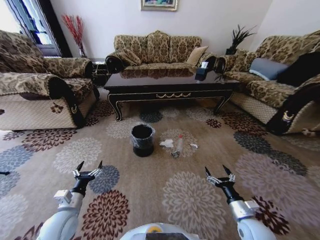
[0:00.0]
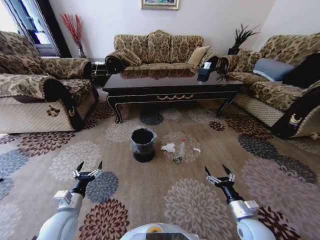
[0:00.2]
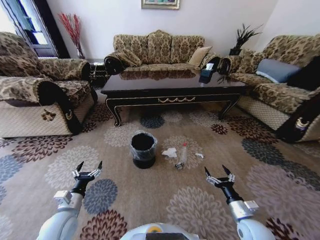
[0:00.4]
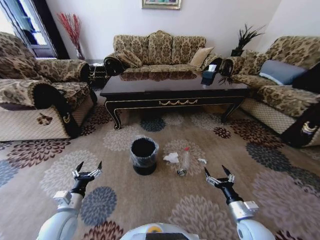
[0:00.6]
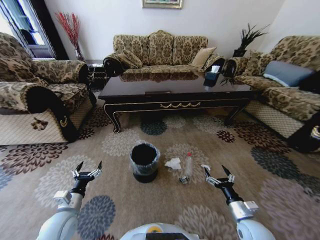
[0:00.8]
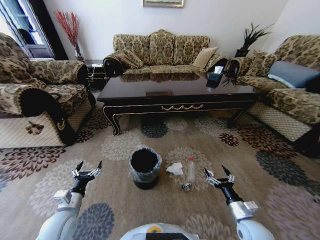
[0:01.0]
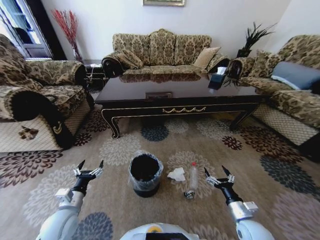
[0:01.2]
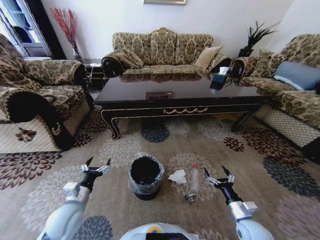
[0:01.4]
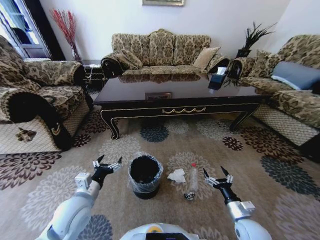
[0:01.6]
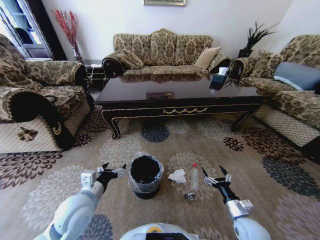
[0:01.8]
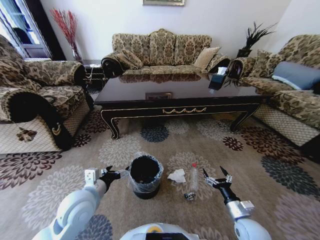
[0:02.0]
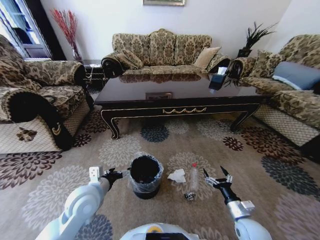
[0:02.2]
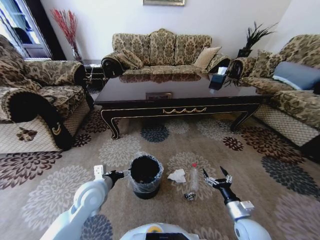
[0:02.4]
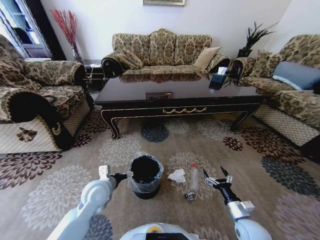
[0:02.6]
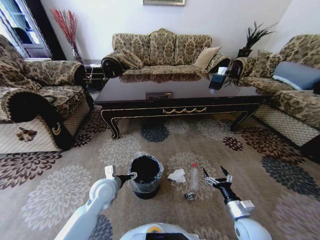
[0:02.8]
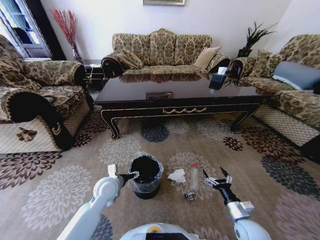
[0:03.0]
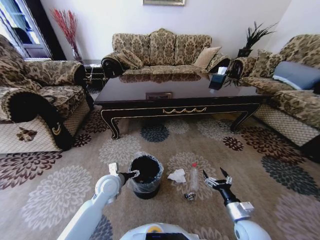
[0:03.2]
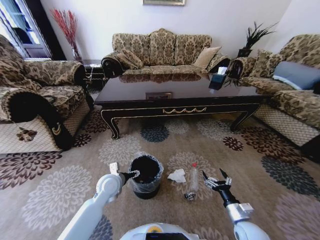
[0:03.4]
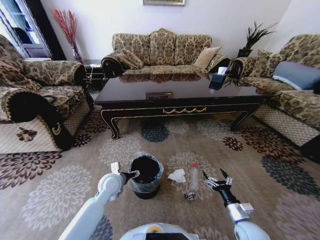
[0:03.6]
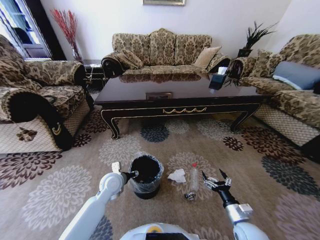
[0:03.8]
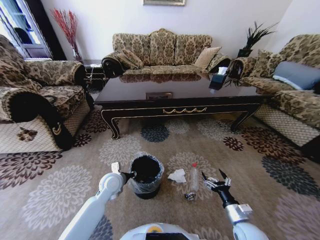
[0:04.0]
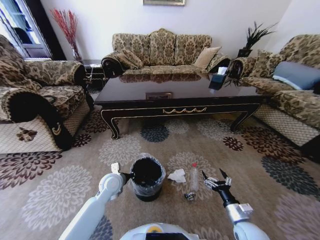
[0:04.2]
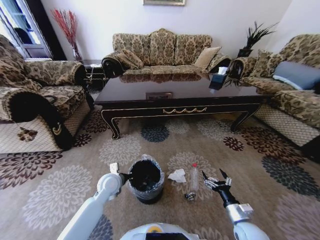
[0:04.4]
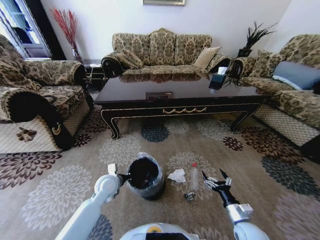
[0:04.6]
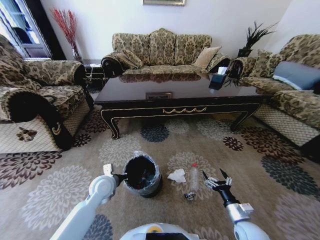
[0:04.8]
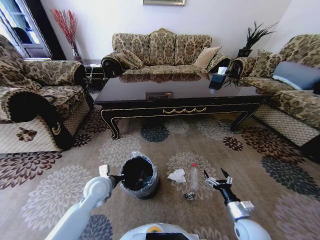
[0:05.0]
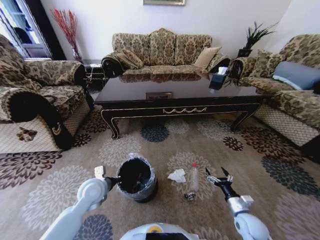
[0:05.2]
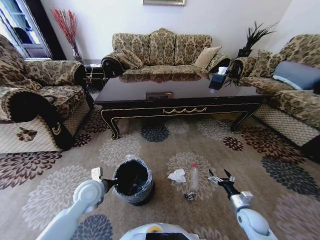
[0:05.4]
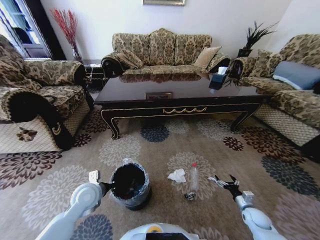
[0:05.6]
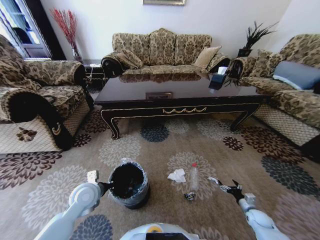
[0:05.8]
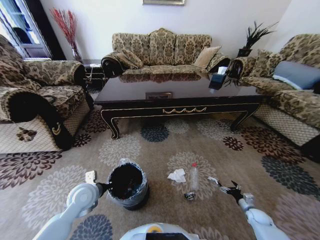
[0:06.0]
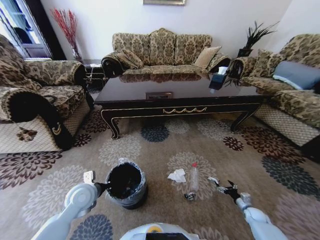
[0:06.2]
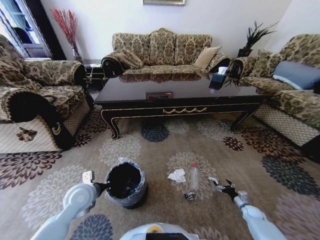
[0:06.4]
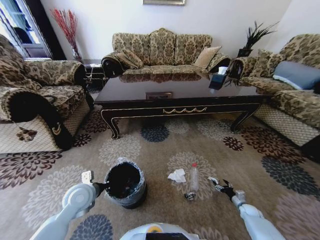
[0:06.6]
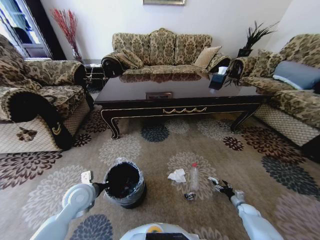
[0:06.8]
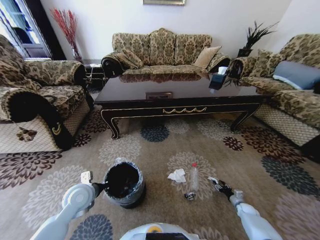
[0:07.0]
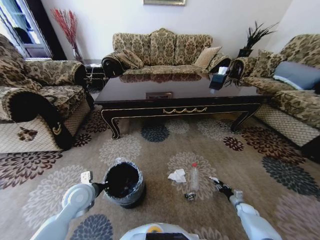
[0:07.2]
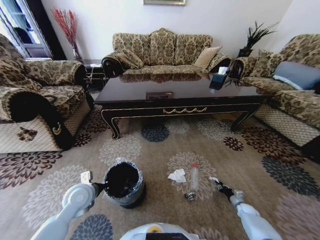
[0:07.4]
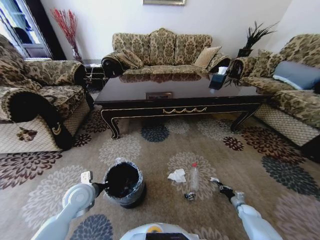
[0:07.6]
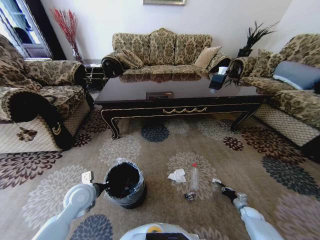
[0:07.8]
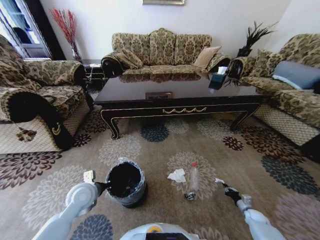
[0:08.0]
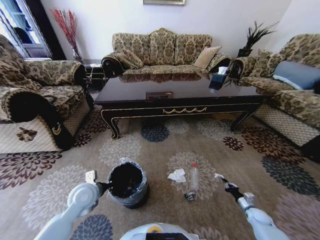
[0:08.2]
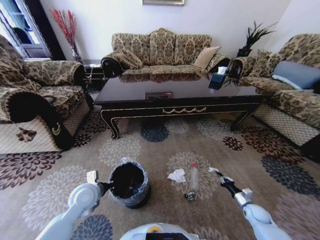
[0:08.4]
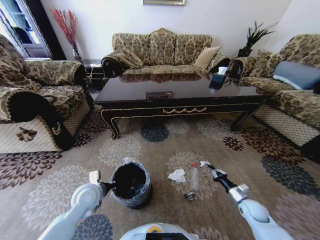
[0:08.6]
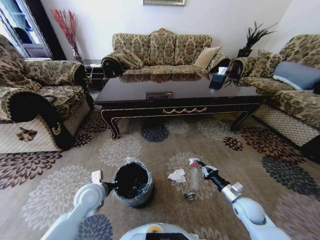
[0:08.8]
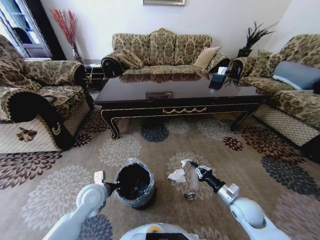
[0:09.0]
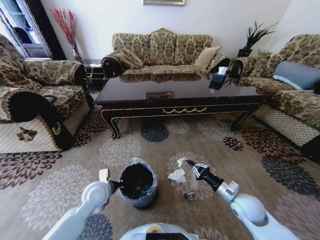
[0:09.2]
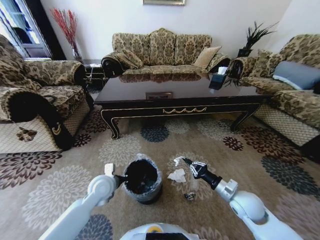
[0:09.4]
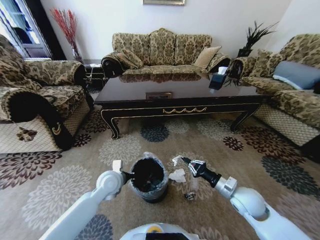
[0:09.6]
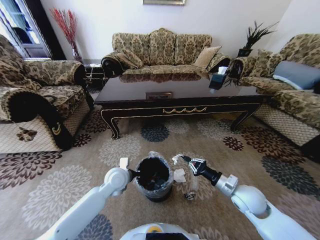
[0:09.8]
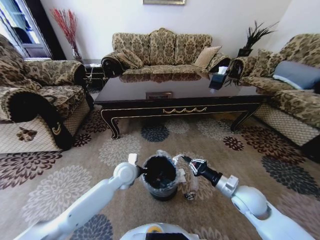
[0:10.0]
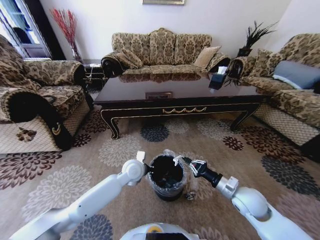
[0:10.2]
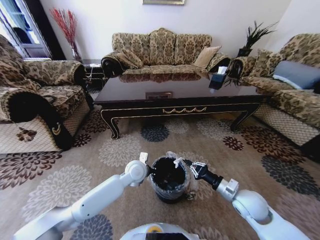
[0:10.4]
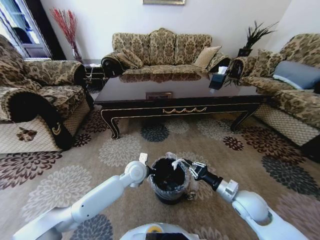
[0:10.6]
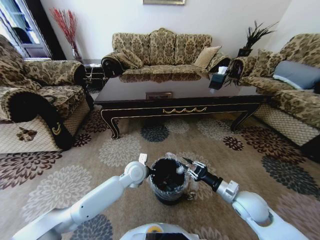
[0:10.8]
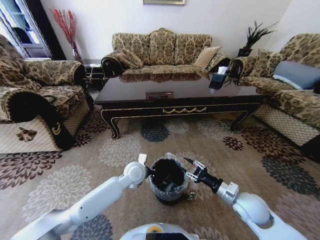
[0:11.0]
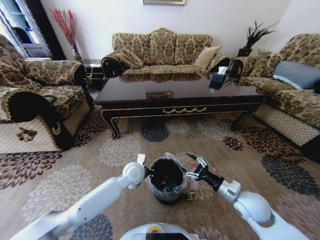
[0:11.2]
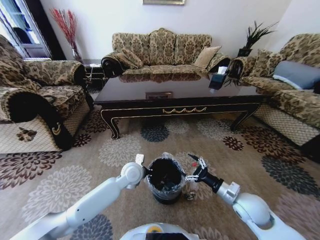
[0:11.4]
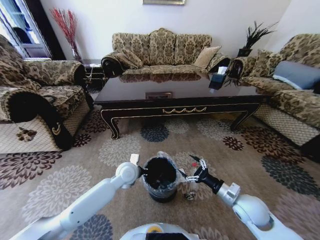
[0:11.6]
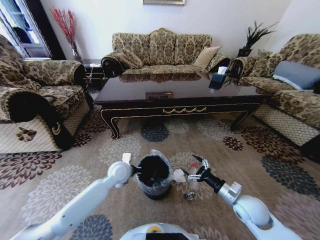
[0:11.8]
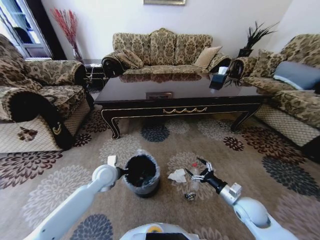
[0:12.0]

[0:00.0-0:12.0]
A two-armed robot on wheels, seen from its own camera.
Task of the whole recording: Move to the front of the table and pick up the trash from the floor, then place it into the trash bin.
0:00.0 to 0:01.6: The left gripper moves upward and to the right, approximately 10 cm.
0:01.6 to 0:03.0: The left gripper heads forward and to the right, covering about 10 cm.
0:03.0 to 0:04.4: The left gripper closes its fingers.
0:04.4 to 0:06.0: The right gripper heads to the right and downward, covering roughly 25 cm, while the left gripper heads to the left and backward, covering approximately 10 cm.
0:06.0 to 0:07.6: The right gripper changes place by roughly 5 cm, and closes its fingers.
0:07.6 to 0:09.0: The right gripper travels upward and to the left by roughly 30 cm.
0:09.0 to 0:10.4: The left gripper moves to the right and forward, some 20 cm; the right gripper goes some 5 cm upward.
0:10.4 to 0:12.0: The left gripper heads to the left, covering about 15 cm, while the right gripper shifts by some 5 cm, and opens.

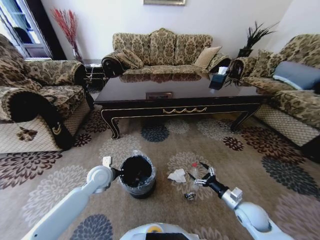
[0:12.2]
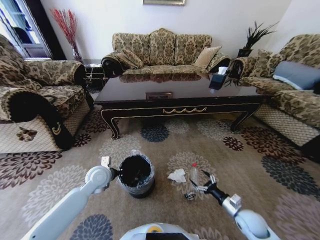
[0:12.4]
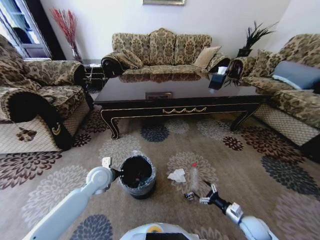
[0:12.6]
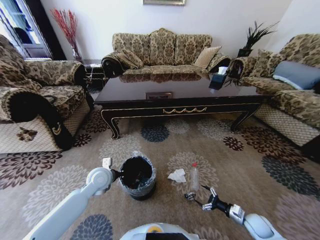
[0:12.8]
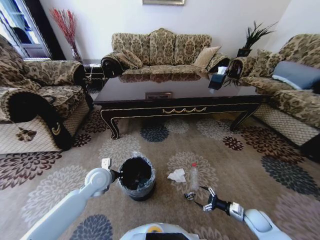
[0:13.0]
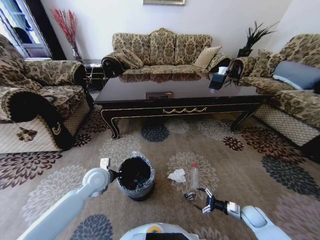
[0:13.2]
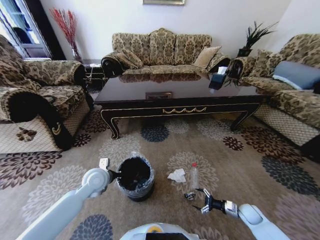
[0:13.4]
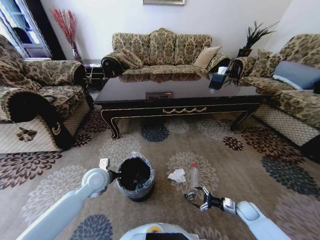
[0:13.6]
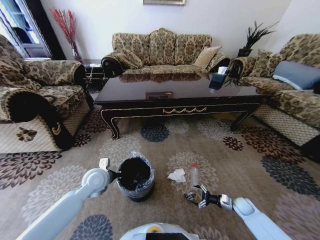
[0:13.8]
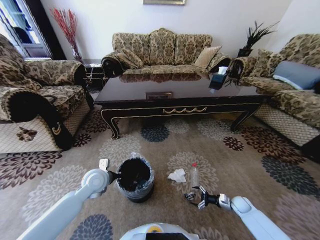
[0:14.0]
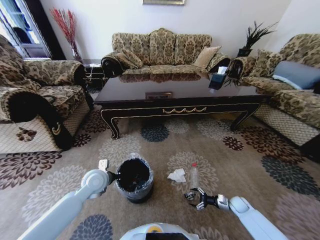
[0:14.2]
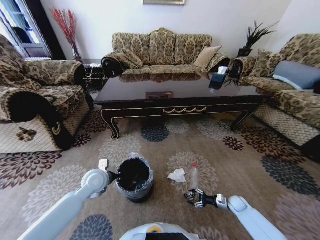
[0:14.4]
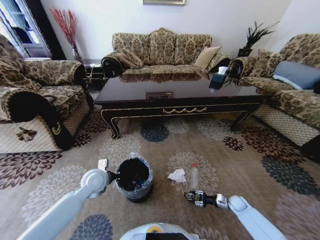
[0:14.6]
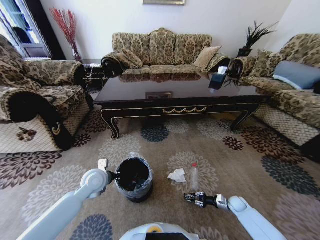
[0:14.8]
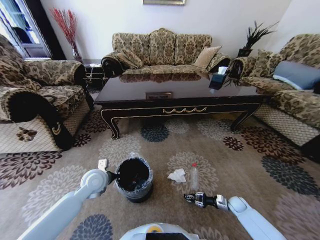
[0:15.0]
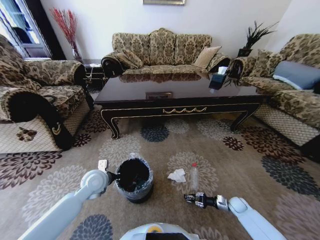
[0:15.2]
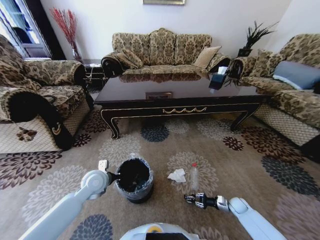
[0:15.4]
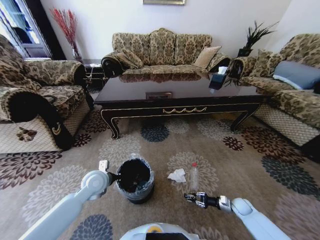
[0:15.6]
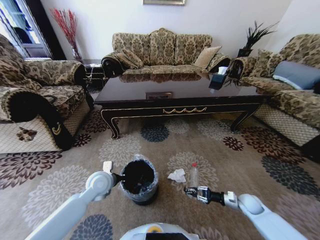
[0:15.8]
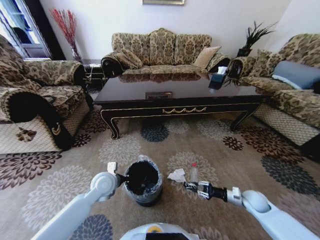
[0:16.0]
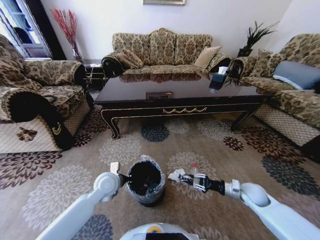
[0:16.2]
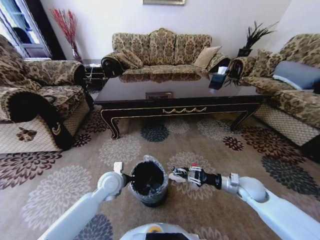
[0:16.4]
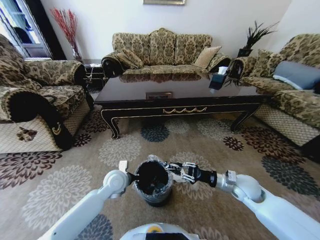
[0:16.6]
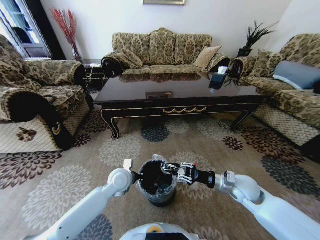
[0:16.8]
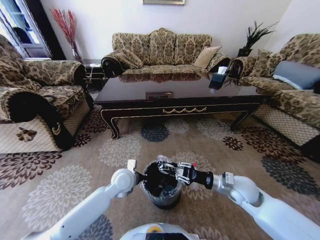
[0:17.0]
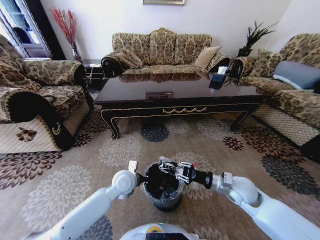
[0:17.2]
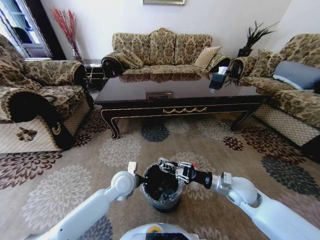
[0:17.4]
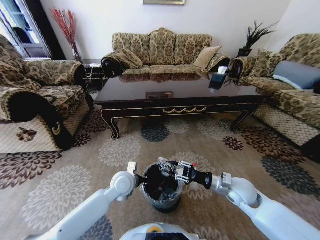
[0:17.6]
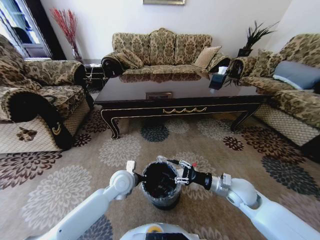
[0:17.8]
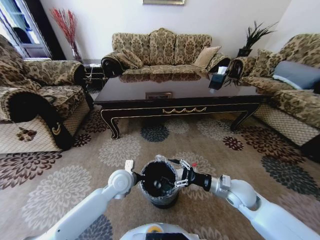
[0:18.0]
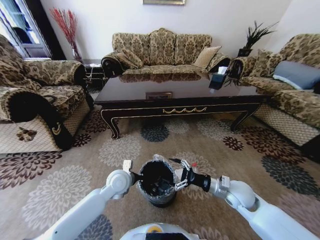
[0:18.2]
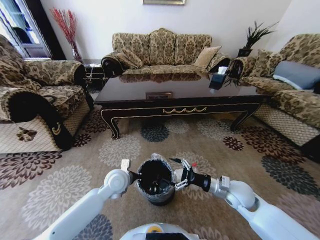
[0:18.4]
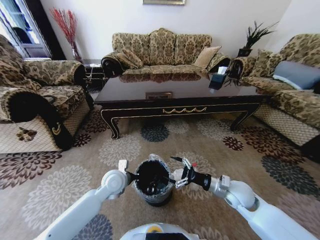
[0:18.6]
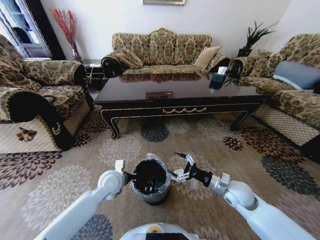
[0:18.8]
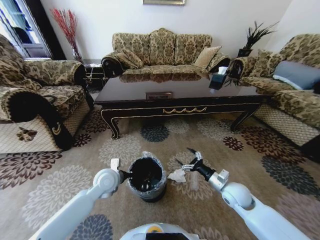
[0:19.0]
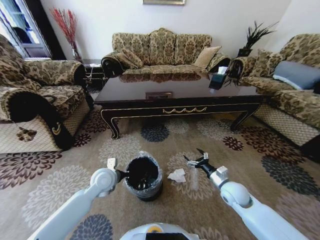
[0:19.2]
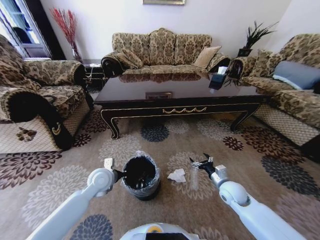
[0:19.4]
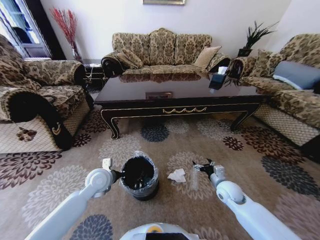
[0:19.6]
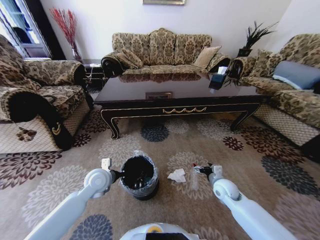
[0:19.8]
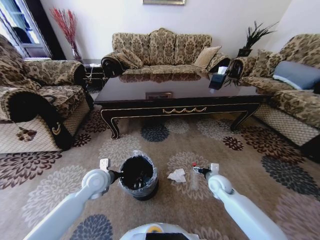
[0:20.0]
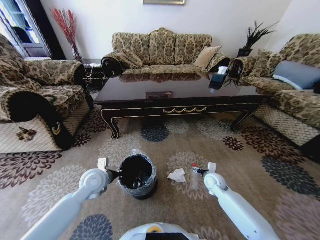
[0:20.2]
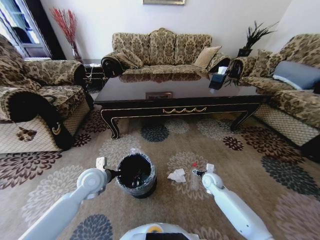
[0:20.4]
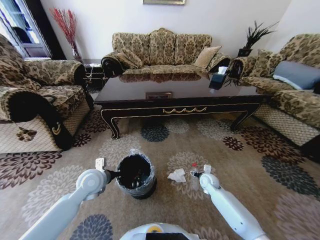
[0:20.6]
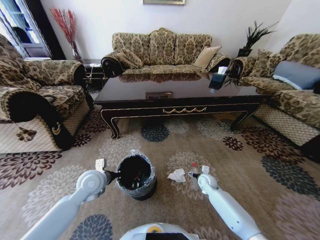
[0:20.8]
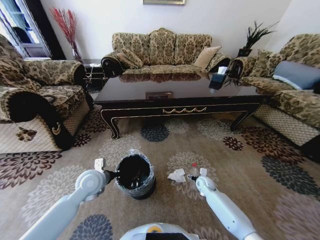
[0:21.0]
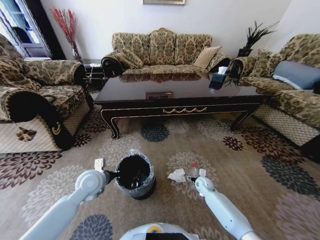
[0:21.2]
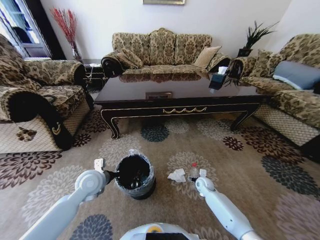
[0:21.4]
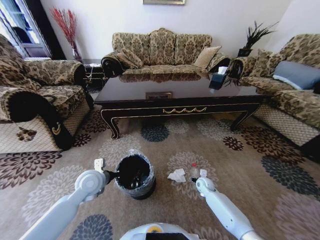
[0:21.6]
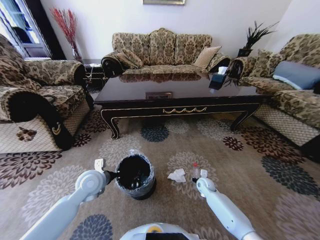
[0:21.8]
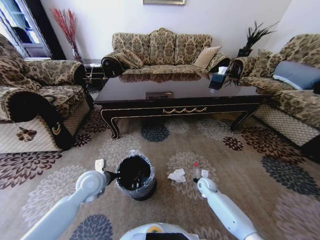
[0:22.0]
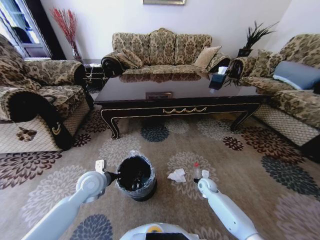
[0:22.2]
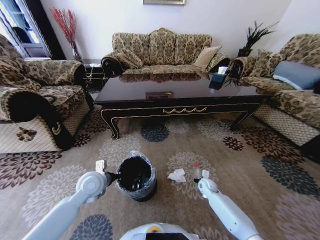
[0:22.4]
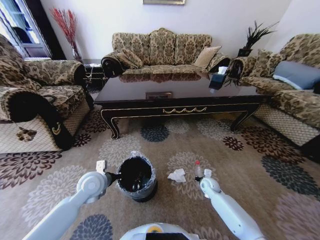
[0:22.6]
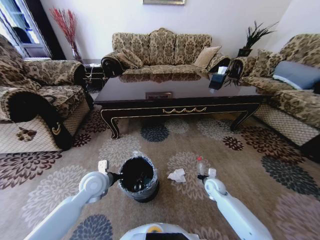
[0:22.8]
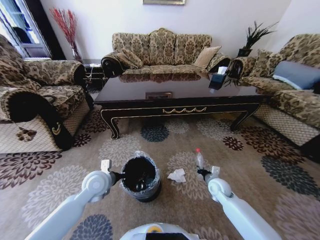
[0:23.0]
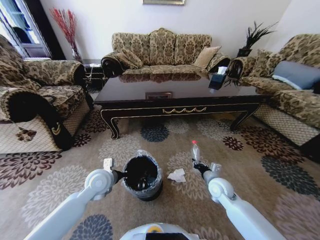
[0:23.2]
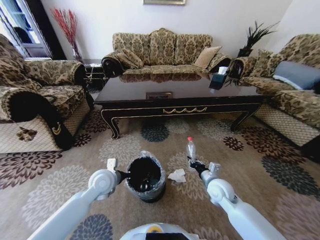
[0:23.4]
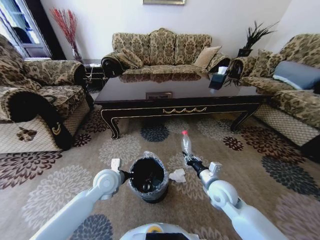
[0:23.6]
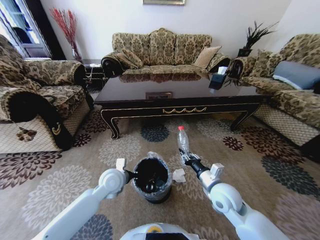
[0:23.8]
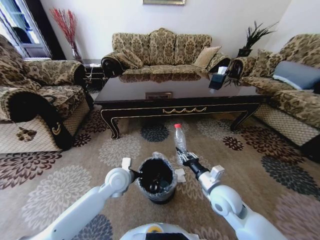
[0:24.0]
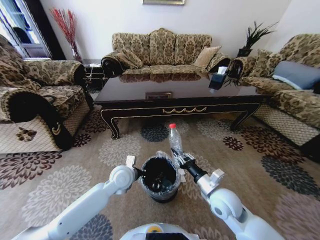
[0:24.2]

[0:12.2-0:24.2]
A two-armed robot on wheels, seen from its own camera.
Task of the whole recording: Move to the front of the table and pick up the trash from the floor, then place it into the trash bin.
0:12.2 to 0:13.8: The right gripper travels downward, to the right and forward by some 20 cm.
0:13.8 to 0:15.2: The right gripper closes.
0:15.2 to 0:16.6: The right gripper heads upward and to the left, covering roughly 30 cm. The left gripper heads to the right, covering about 10 cm.
0:16.6 to 0:18.2: The right gripper opens.
0:18.2 to 0:19.8: The left gripper is displaced to the left by about 10 cm; the right gripper goes about 10 cm downward and forward.
0:19.8 to 0:21.2: The right gripper is displaced downward and forward by roughly 15 cm.
0:21.2 to 0:22.6: The right gripper closes.
0:22.6 to 0:24.2: The left gripper heads to the right, covering approximately 10 cm, while the right gripper heads upward, backward and to the left, covering approximately 25 cm.
